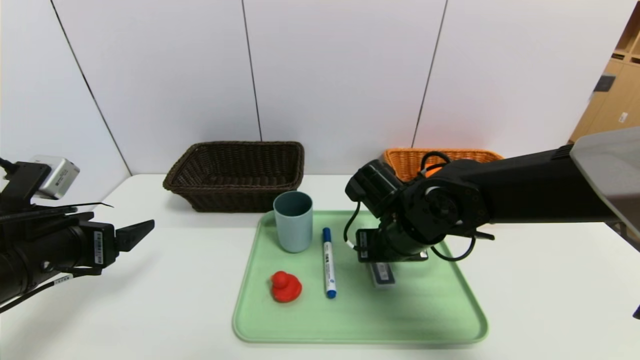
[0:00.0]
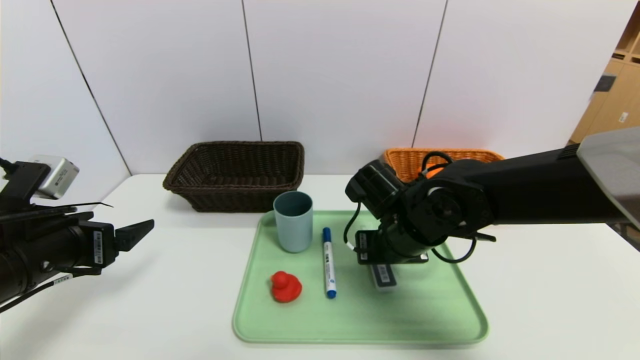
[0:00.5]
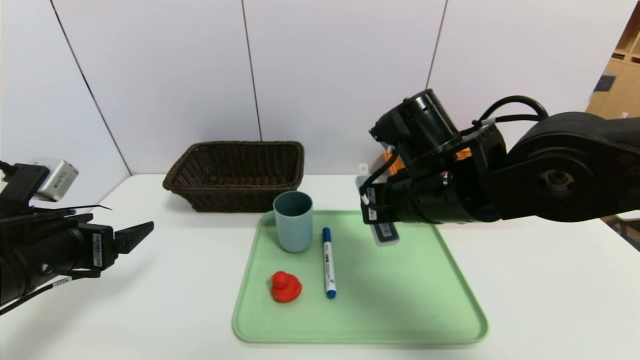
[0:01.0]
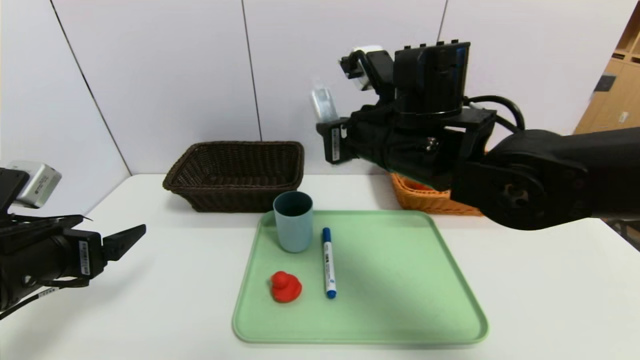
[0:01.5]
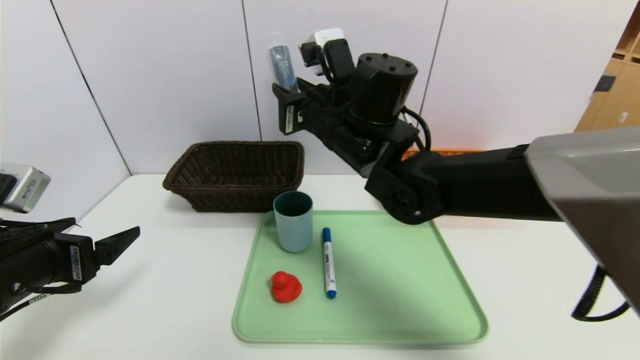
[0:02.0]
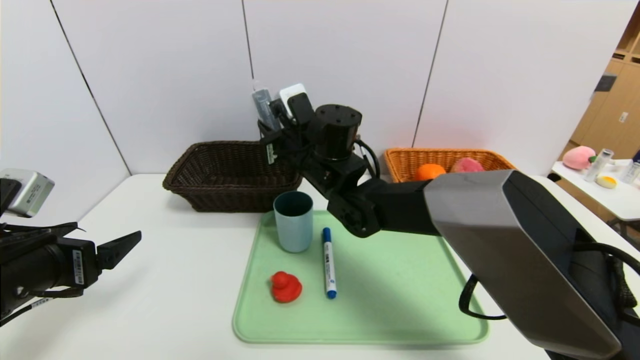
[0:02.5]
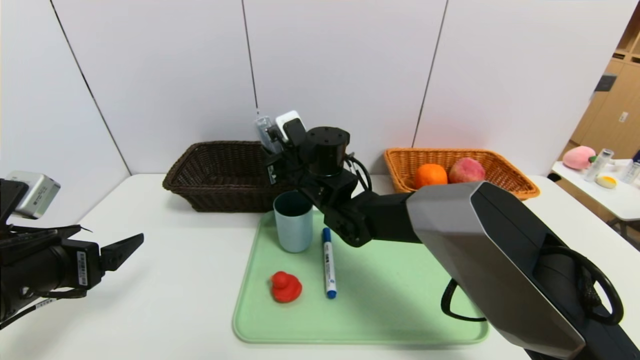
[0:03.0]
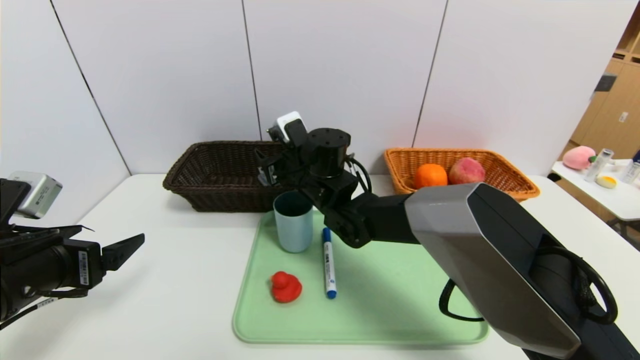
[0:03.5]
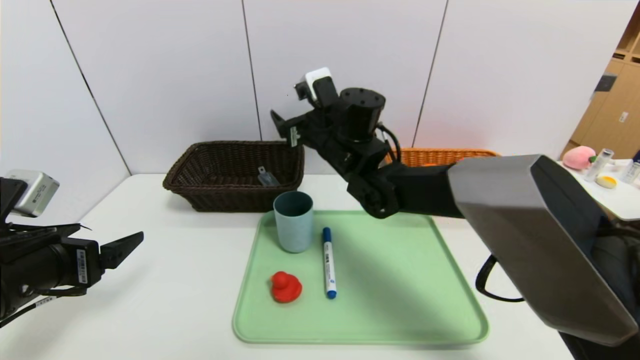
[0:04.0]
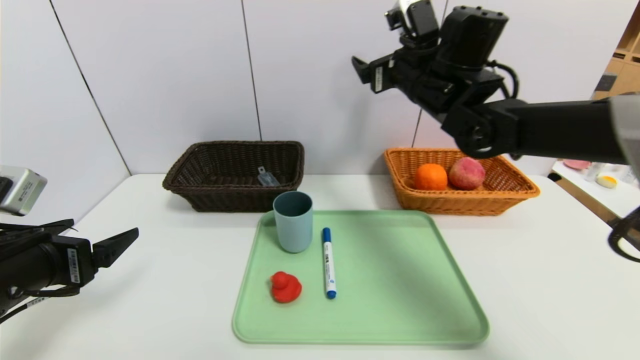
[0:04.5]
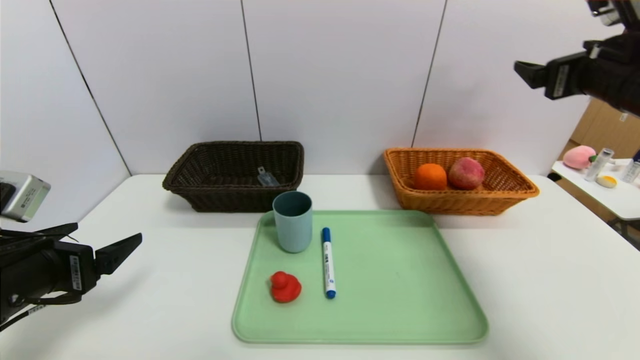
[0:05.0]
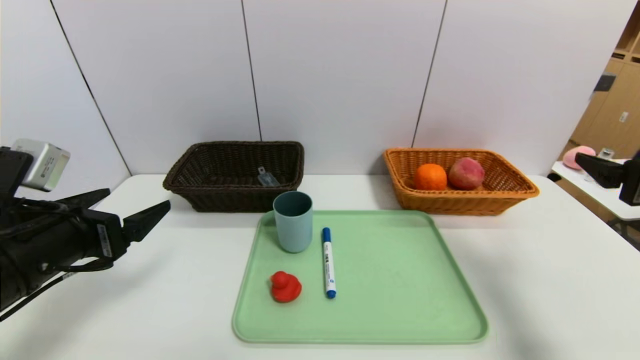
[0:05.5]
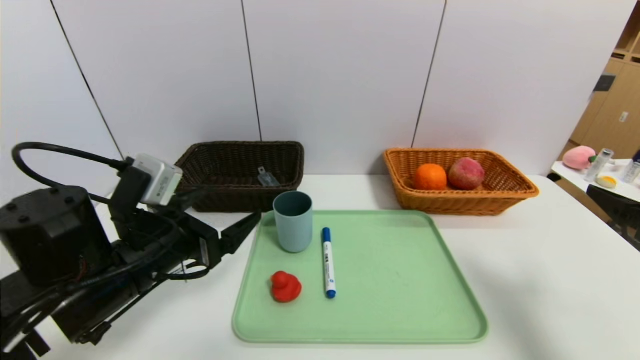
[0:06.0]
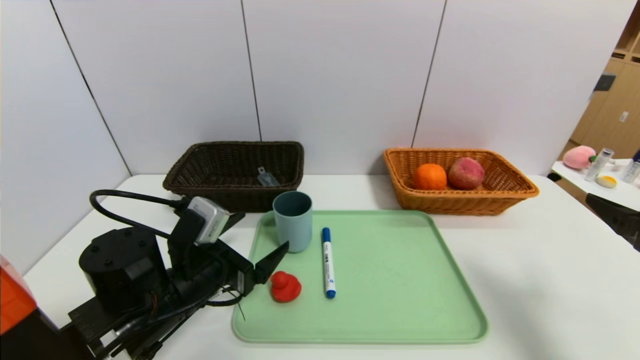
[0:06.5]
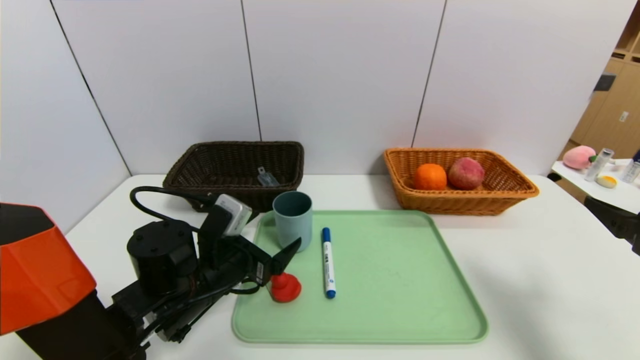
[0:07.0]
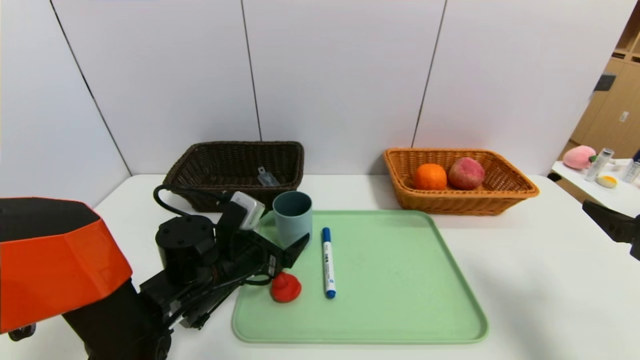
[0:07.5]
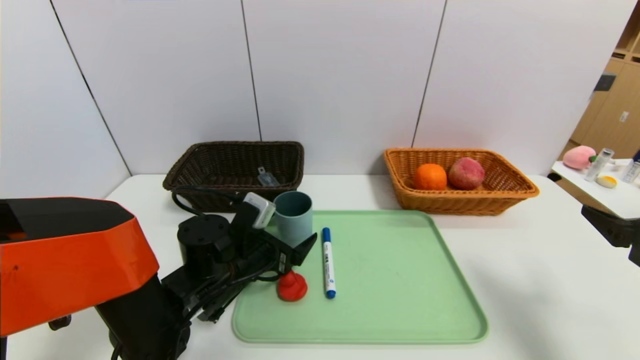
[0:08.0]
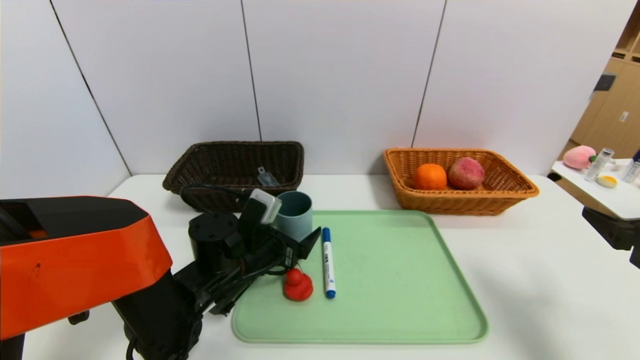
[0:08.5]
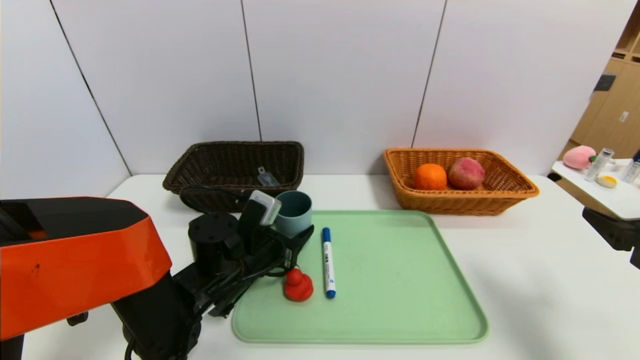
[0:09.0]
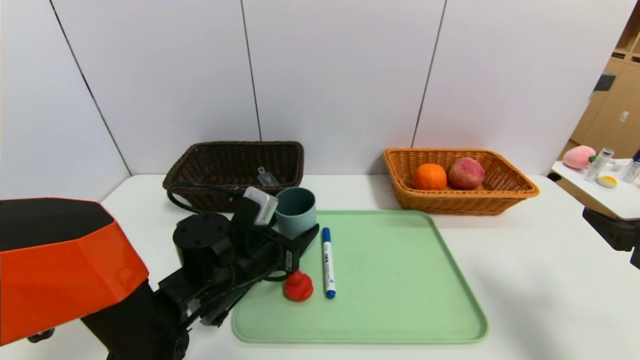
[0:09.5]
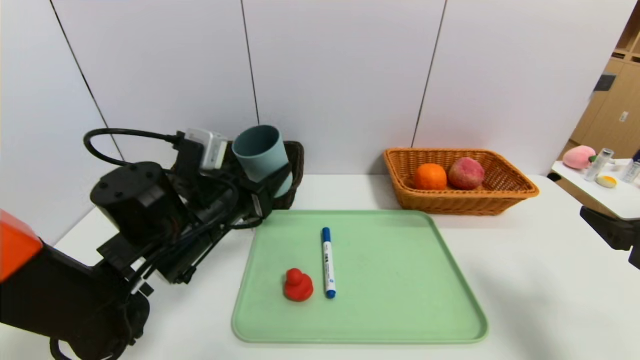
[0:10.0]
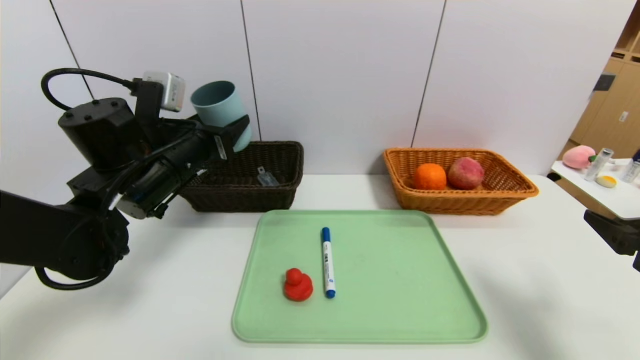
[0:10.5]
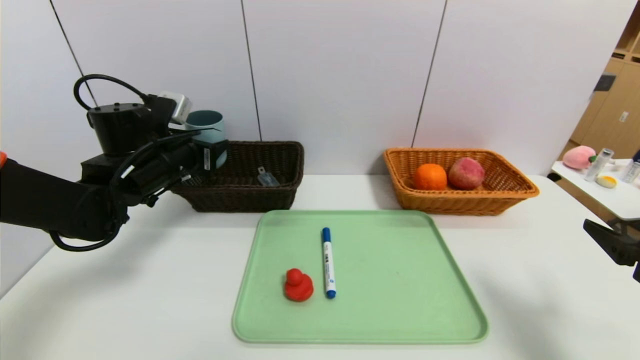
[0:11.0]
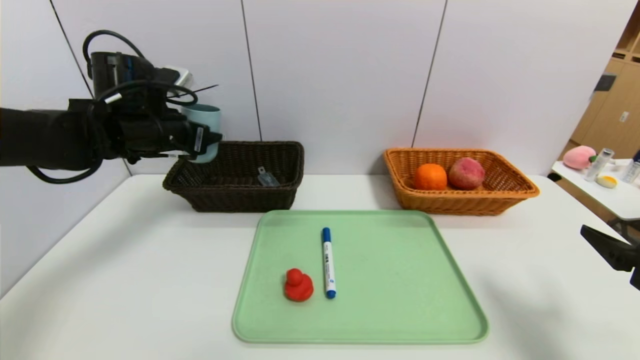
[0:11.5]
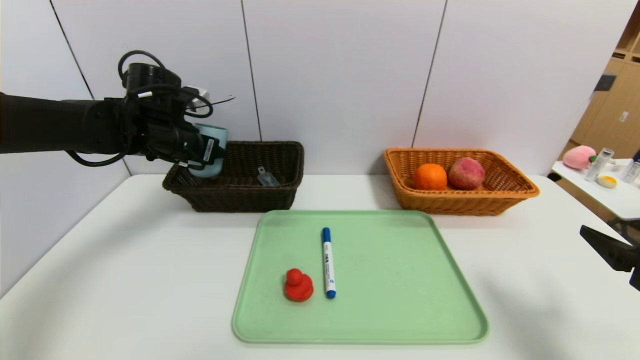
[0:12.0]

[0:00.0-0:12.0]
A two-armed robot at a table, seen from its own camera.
Task of the whole recording: place the food in the right basket with the right gripper, and place the non food items in the left basket with the left gripper.
0:00.0 to 0:02.0: The right gripper shifts approximately 15 cm upward and to the left.
0:02.0 to 0:04.0: The right gripper shifts roughly 5 cm forward, and opens.
0:04.0 to 0:06.0: The left gripper goes some 10 cm to the right, while the right gripper heads to the right and backward, covering approximately 40 cm.
0:06.0 to 0:08.0: The left gripper moves downward, forward and to the right, approximately 15 cm.
0:08.0 to 0:10.0: The left gripper is displaced upward by approximately 10 cm, and closes up.
0:10.0 to 0:12.0: The left gripper goes approximately 15 cm forward, to the left and upward.

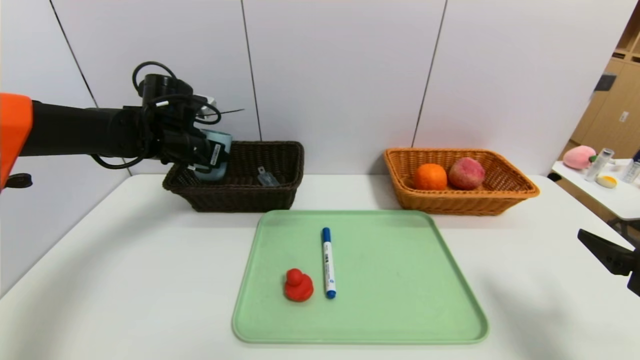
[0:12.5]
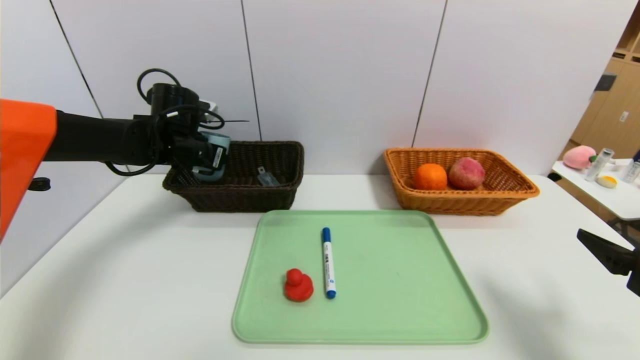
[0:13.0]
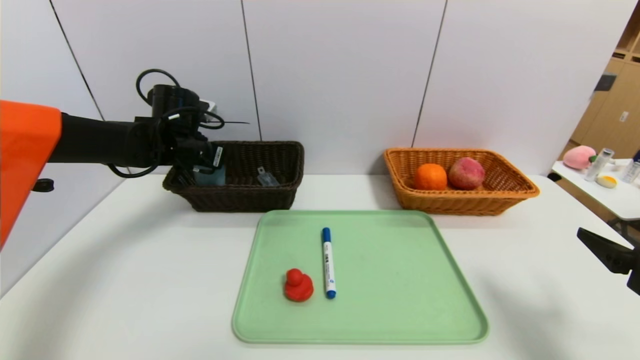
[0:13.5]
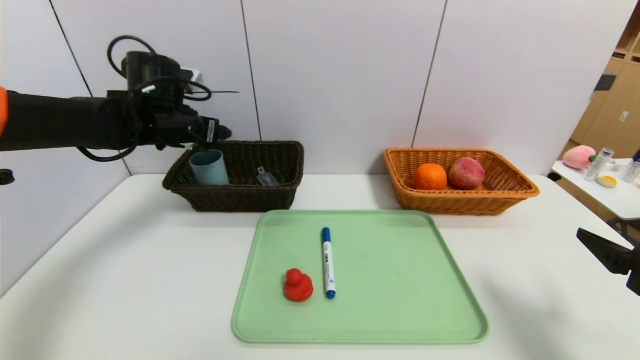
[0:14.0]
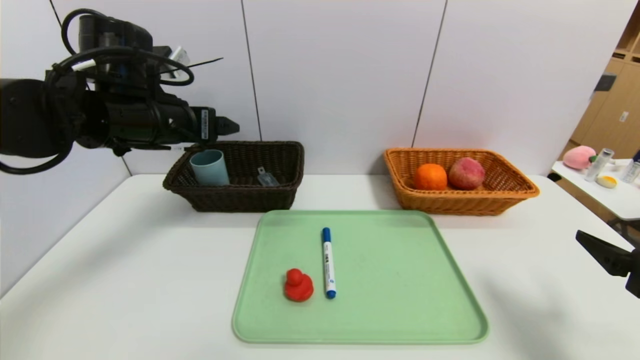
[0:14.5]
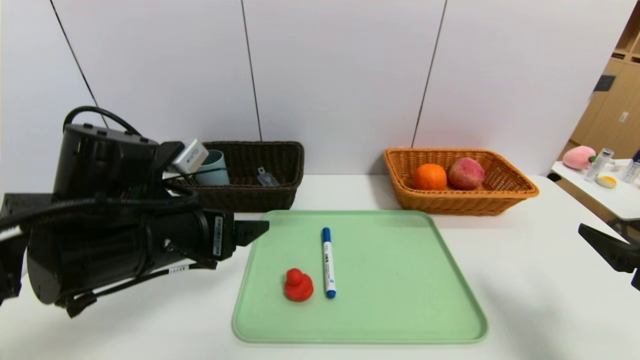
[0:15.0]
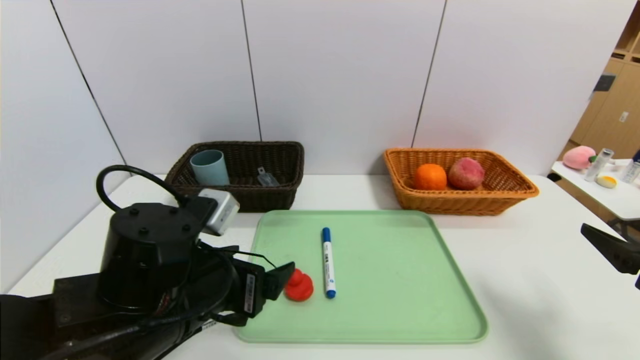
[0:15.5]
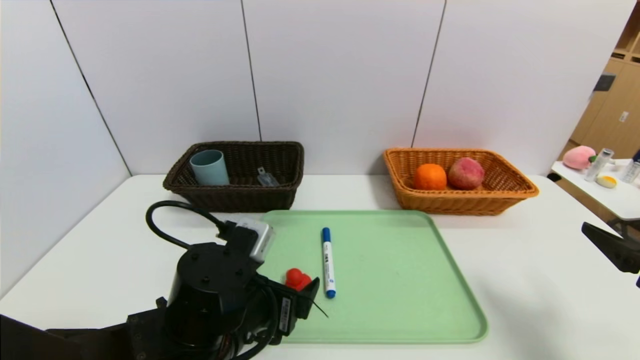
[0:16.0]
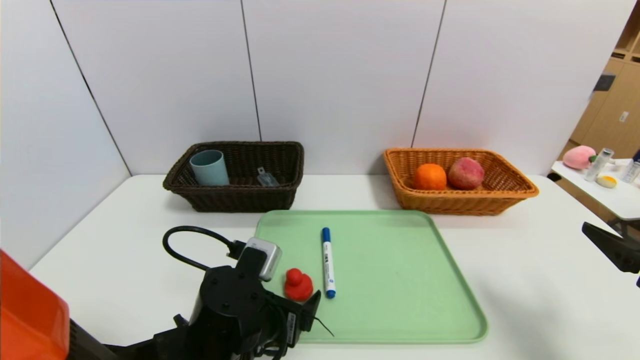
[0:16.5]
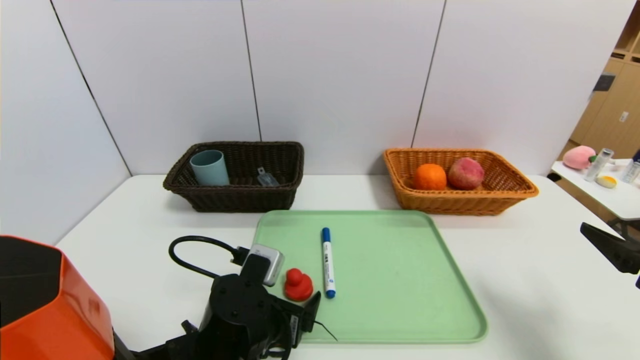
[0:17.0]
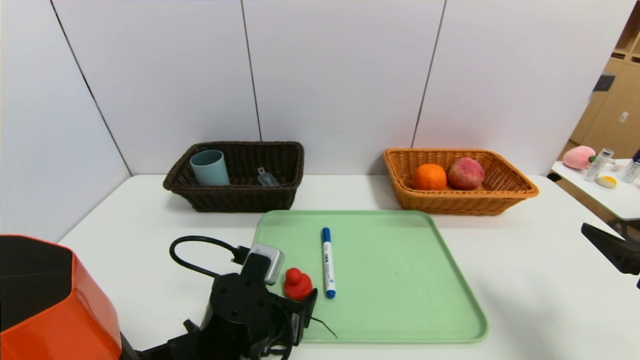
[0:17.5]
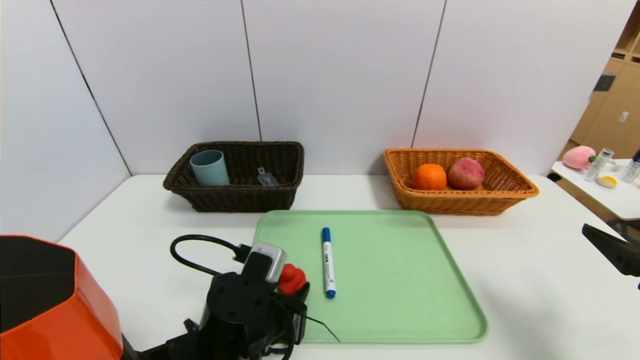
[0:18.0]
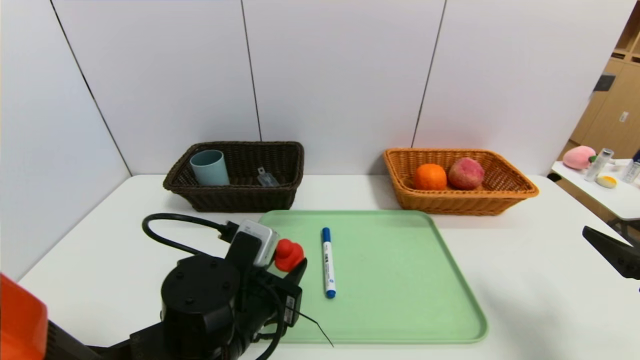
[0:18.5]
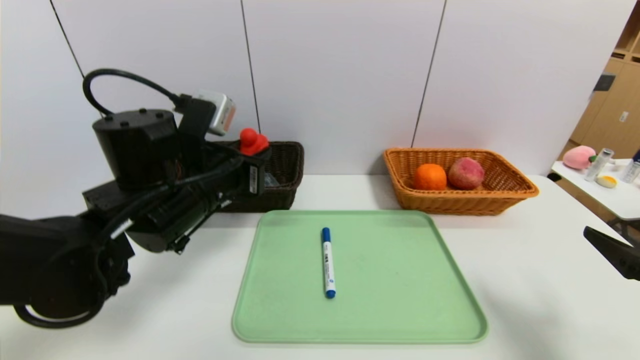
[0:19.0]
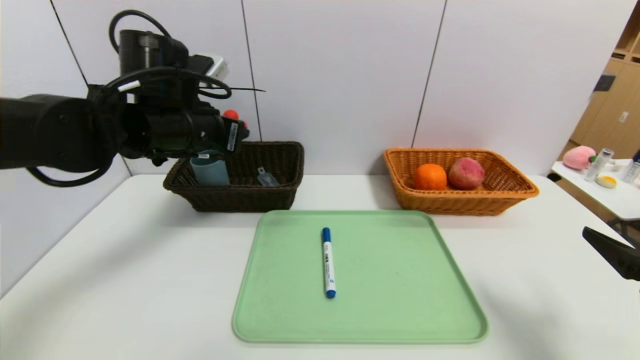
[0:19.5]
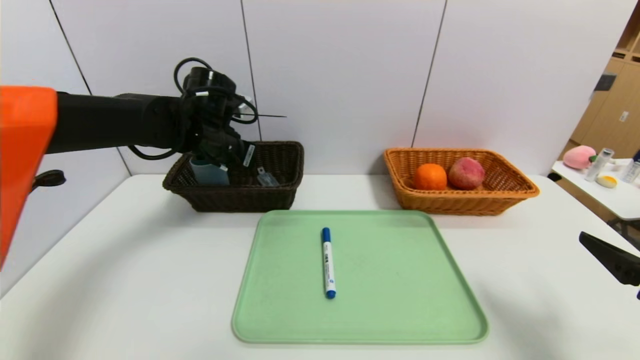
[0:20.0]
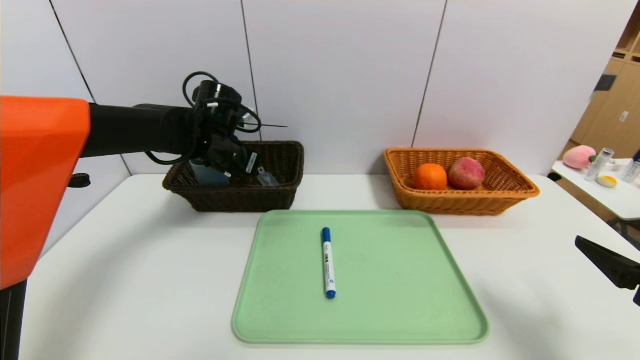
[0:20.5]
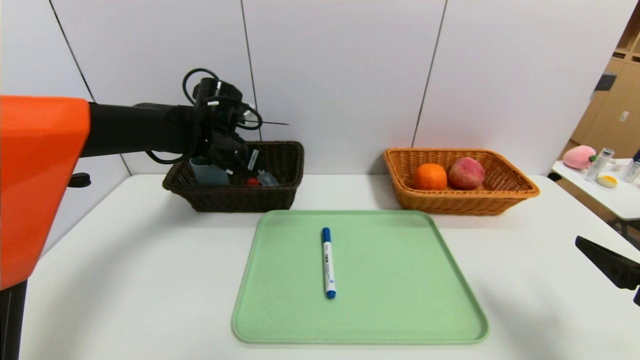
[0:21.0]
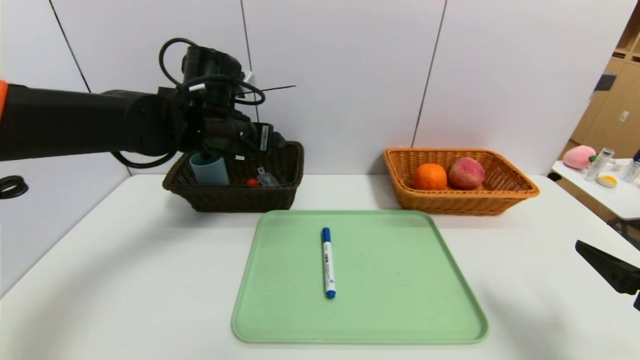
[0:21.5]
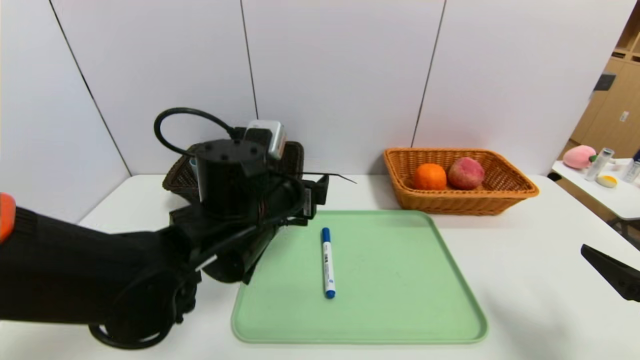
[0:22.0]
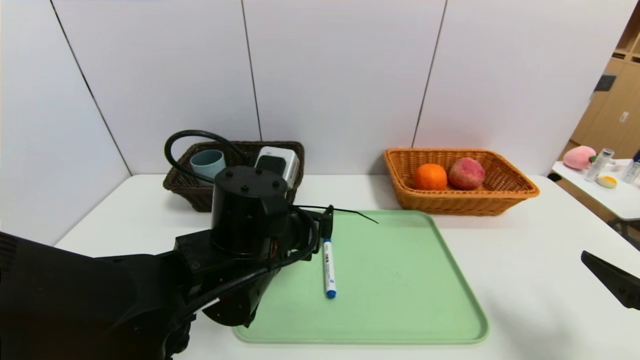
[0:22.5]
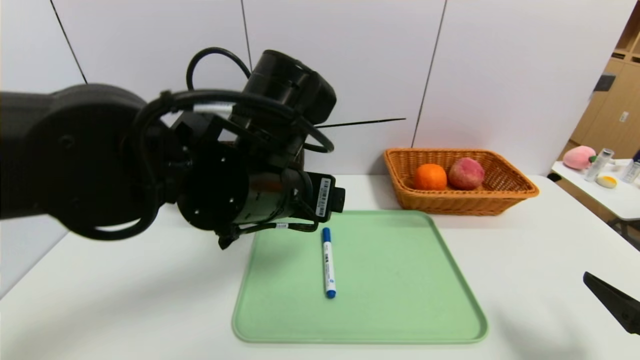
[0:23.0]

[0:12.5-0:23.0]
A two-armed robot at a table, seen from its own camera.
Task of the whole recording: place the food in the right basket with the right gripper, and place the non food items in the left basket with the left gripper.
Step, 0:14.0 to 0:20.5: Grasp the red duck and put it in the left basket.
0:12.5 to 0:14.5: The left gripper travels backward and upward by approximately 10 cm, and opens its fingers.
0:14.5 to 0:16.5: The left gripper is displaced downward, backward and to the right by approximately 25 cm.
0:16.5 to 0:19.0: The left gripper travels upward and forward by approximately 15 cm, and closes.
0:19.0 to 0:21.0: The left gripper moves forward, about 15 cm, and opens.
0:21.0 to 0:23.0: The left gripper moves backward and to the right, about 25 cm.
